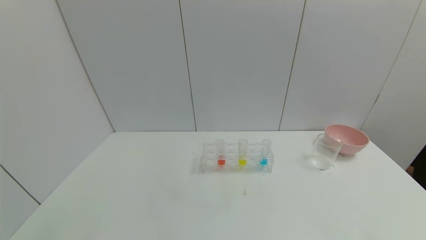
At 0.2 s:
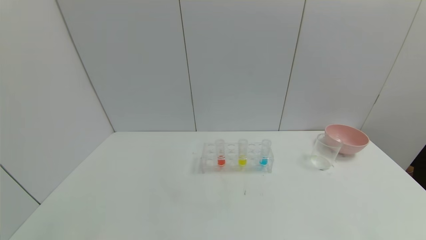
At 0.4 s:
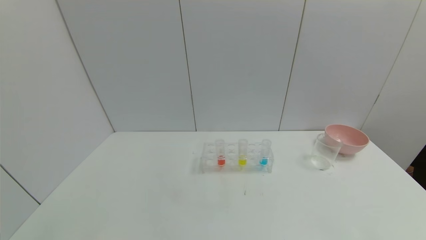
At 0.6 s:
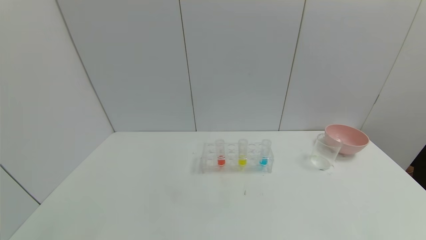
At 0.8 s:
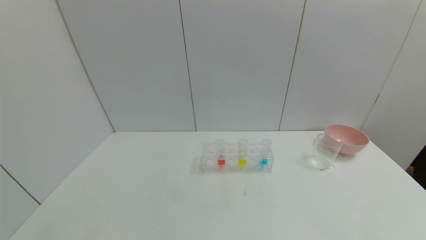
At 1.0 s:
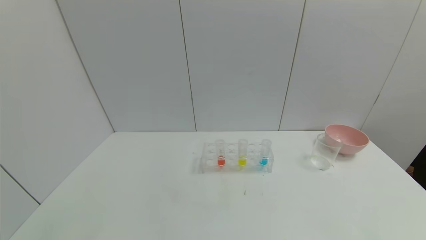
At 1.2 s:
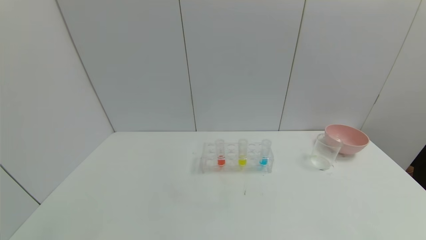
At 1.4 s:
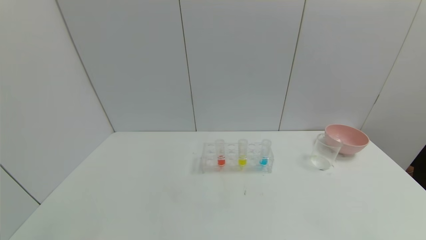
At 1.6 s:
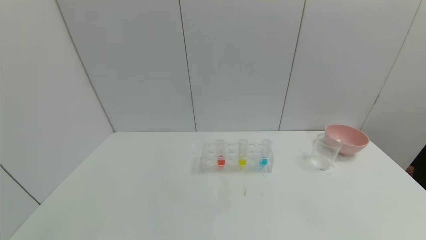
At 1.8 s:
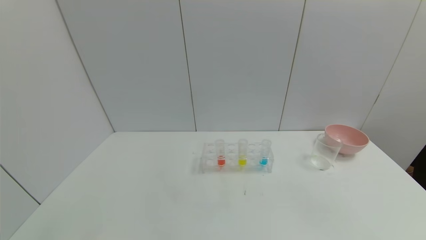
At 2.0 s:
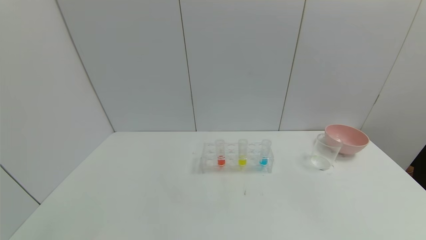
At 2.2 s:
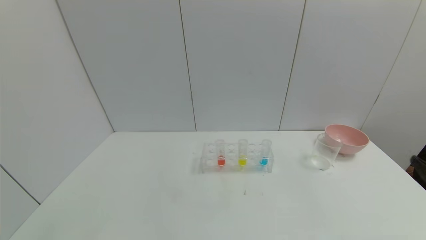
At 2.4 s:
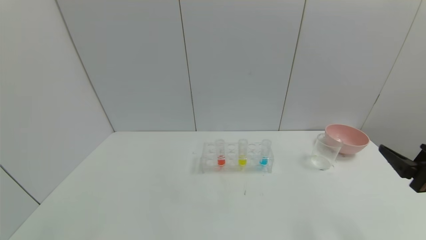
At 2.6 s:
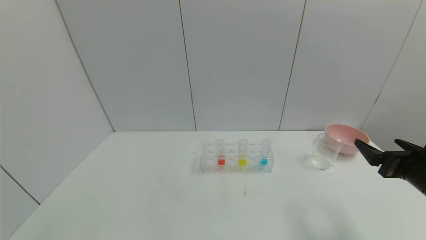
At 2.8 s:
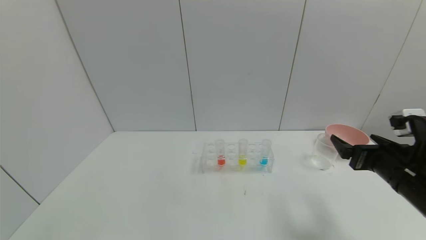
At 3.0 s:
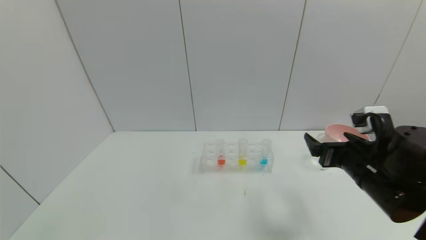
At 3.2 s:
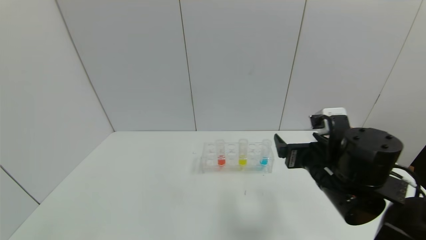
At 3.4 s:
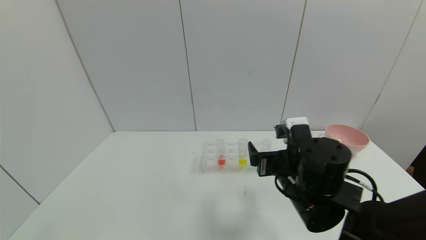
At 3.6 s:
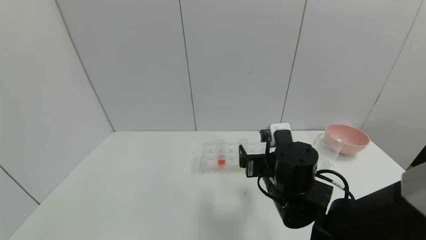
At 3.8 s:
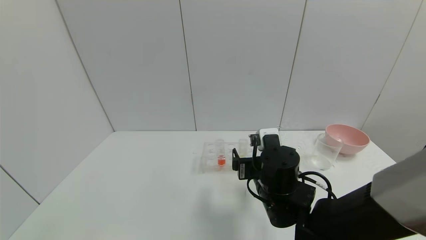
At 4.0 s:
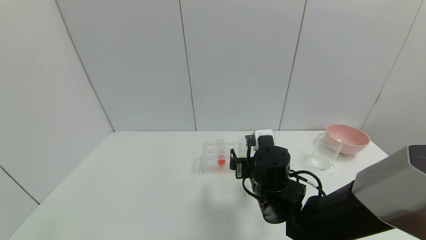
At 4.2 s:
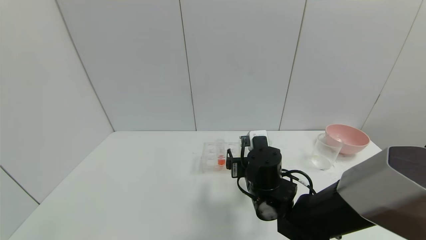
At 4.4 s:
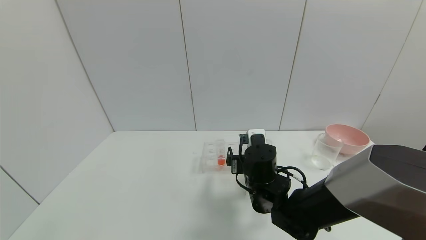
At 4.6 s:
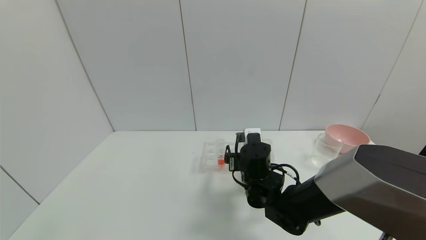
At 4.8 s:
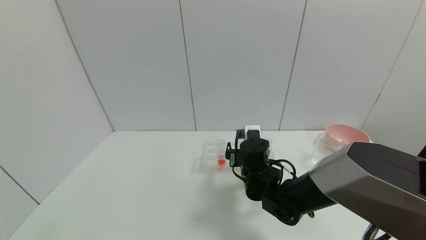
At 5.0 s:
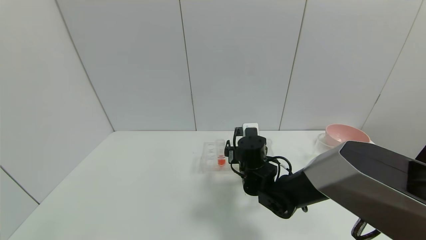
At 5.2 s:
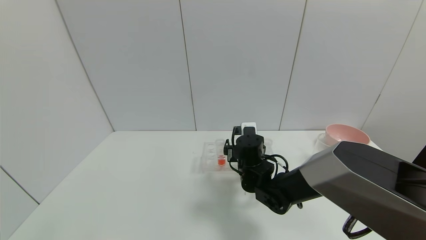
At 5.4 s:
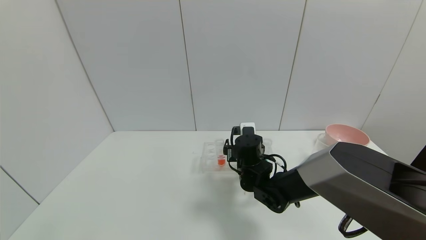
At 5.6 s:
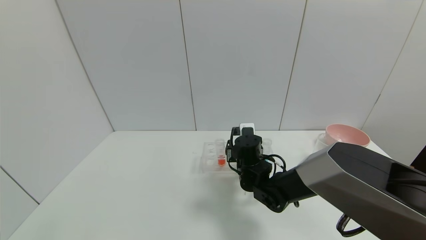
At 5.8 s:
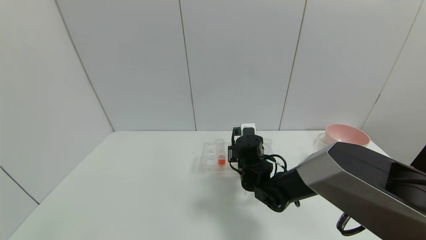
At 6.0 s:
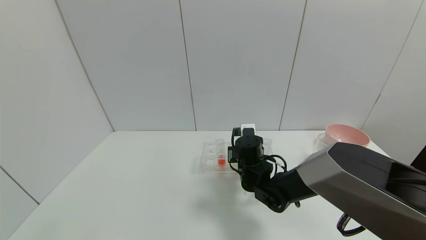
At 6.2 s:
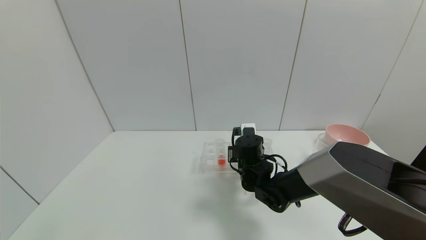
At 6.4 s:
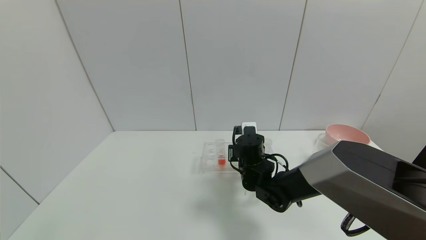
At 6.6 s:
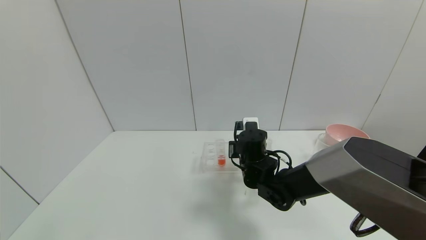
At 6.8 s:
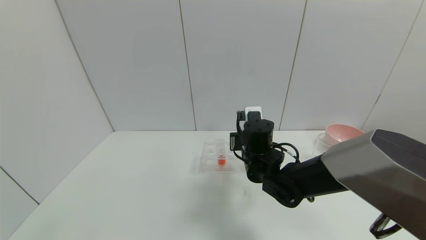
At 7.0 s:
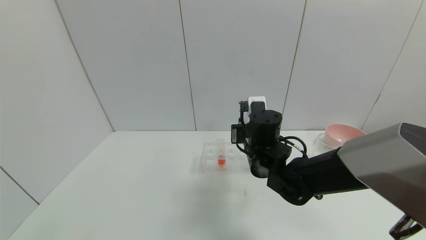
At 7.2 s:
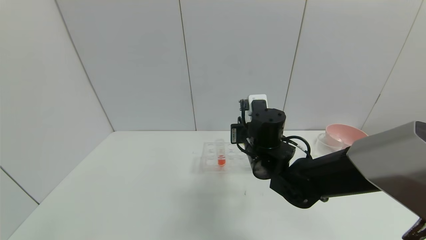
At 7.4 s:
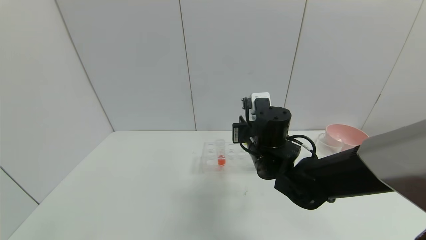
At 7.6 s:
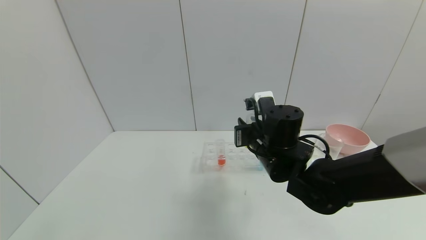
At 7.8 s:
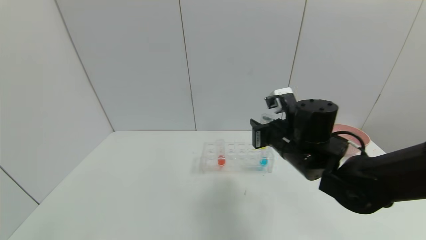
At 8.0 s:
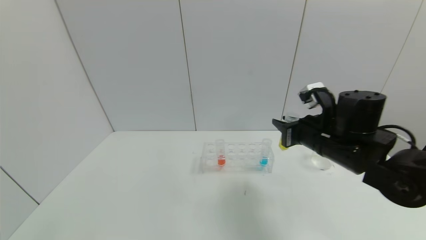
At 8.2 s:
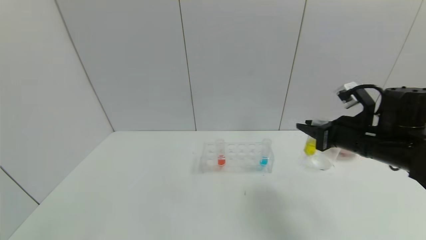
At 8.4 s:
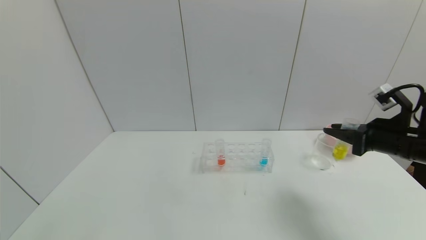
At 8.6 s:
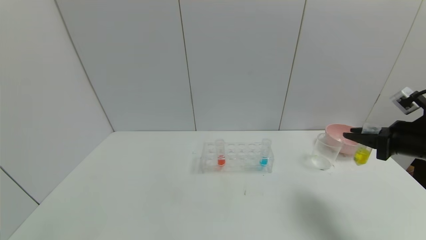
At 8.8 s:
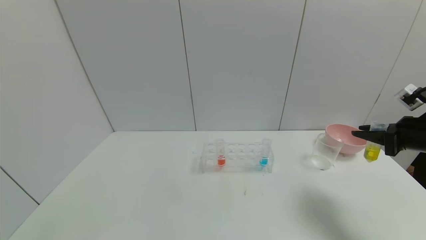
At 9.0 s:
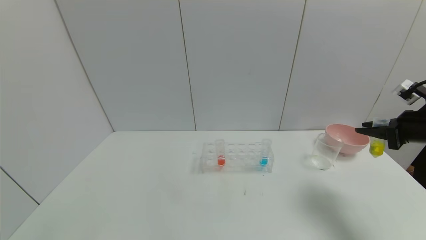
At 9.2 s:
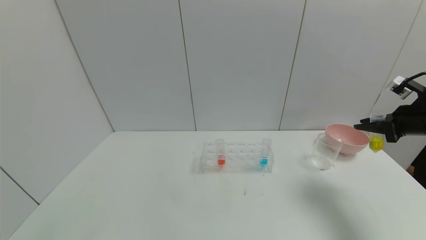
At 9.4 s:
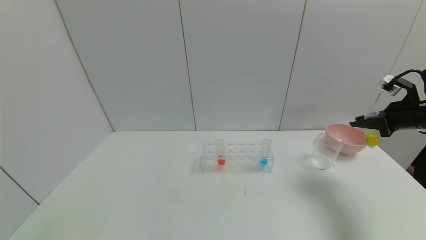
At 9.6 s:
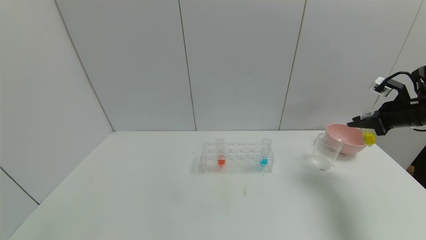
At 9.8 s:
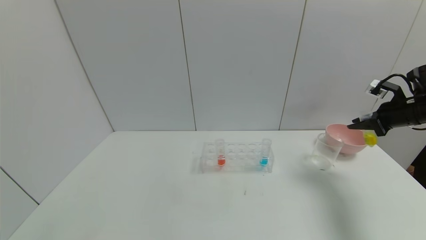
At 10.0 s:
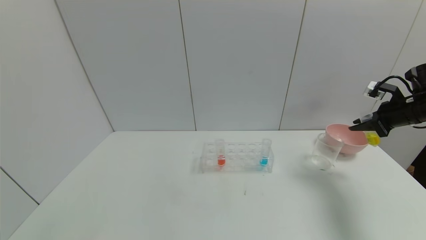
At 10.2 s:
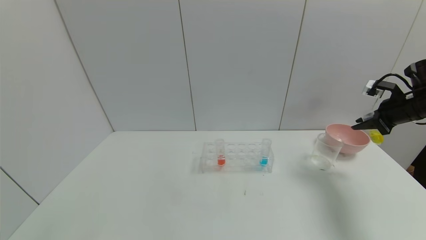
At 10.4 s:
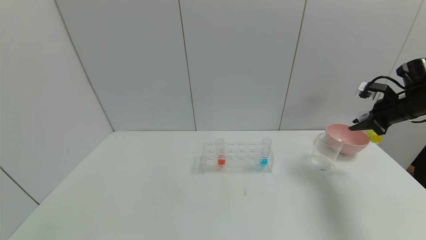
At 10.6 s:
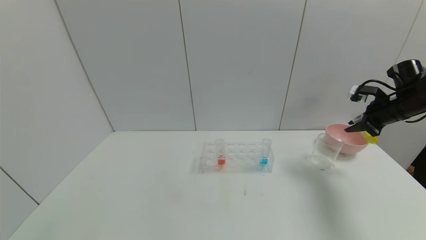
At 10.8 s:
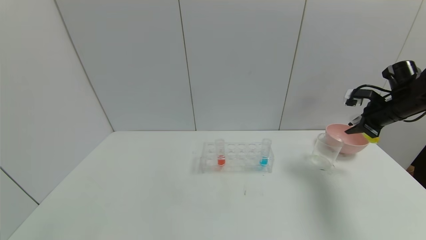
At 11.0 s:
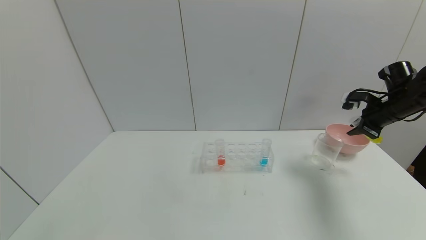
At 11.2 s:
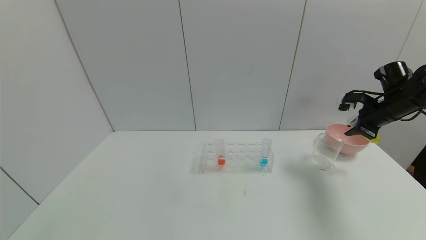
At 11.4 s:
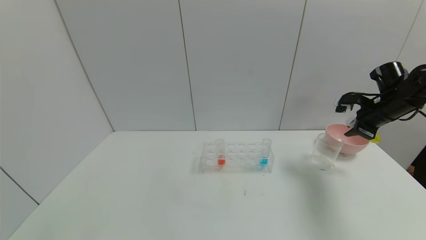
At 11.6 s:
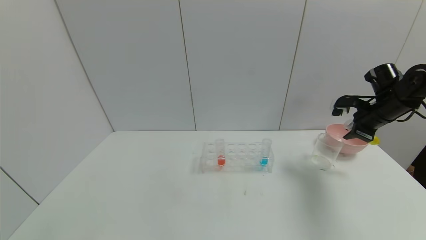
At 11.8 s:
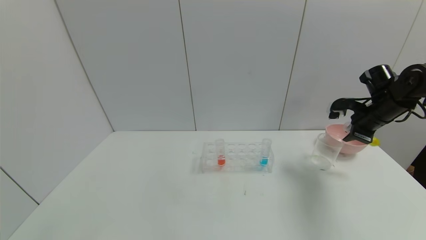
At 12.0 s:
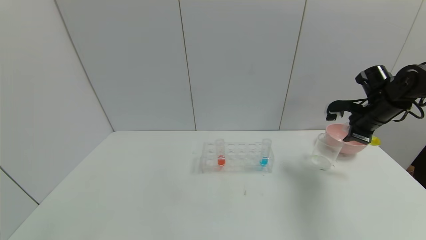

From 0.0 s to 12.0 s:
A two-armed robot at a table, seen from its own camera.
Task of the whole recording: pick up the test tube with yellow pigment and the test tube with blue pigment by grippers and pour them into the beaker.
Step, from 0.0 s to 6.0 s: Grasp the yellow reagent with the right gripper.
From 1.6 s to 3.0 s: The right gripper shifts some 30 cm forward and to the left.
From 3.0 s to 4.4 s: The right gripper heads to the left, downward and forward, covering roughly 20 cm.
From 4.4 s to 6.0 s: The right gripper shifts some 5 cm forward, and closes up.
From 6.0 s to 7.6 s: The right gripper goes about 10 cm upward and backward.
From 7.6 s to 9.0 s: The right gripper goes about 30 cm to the right.
From 9.0 s to 10.4 s: The right gripper shifts approximately 10 cm forward.
From 10.4 s to 12.0 s: The right gripper is displaced to the left by some 5 cm.

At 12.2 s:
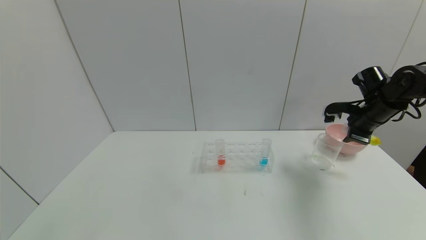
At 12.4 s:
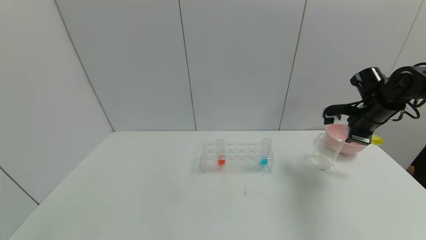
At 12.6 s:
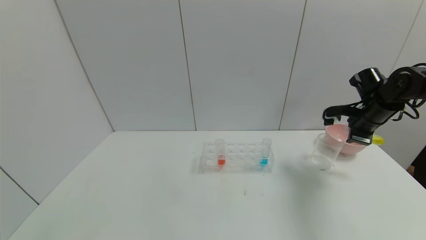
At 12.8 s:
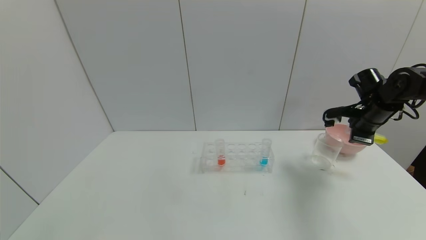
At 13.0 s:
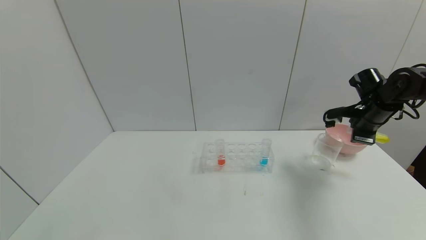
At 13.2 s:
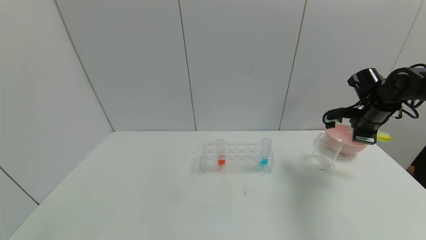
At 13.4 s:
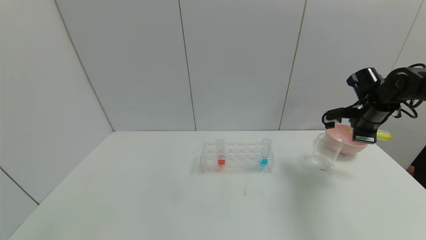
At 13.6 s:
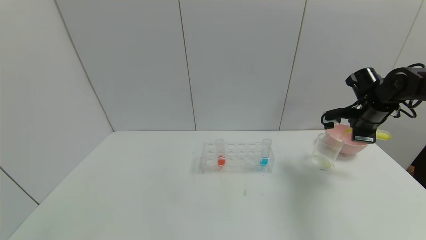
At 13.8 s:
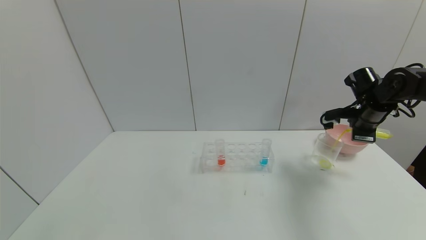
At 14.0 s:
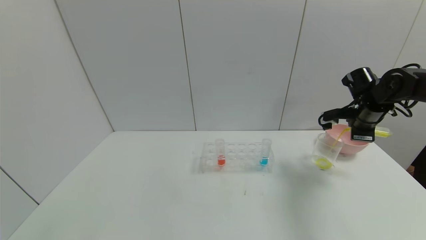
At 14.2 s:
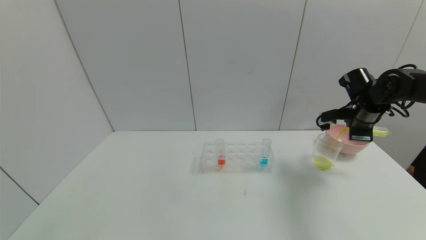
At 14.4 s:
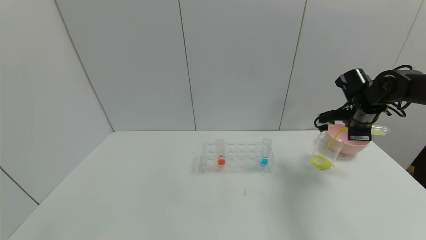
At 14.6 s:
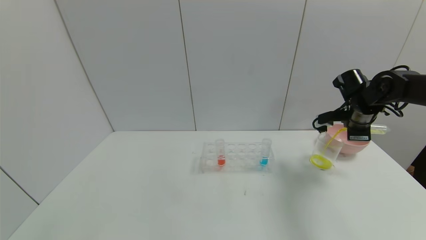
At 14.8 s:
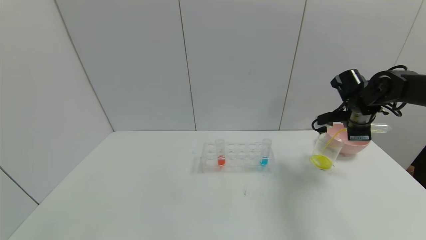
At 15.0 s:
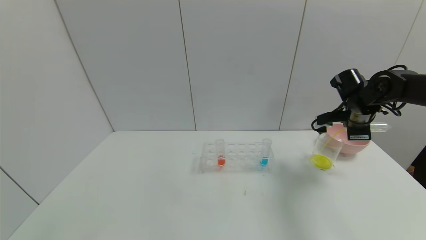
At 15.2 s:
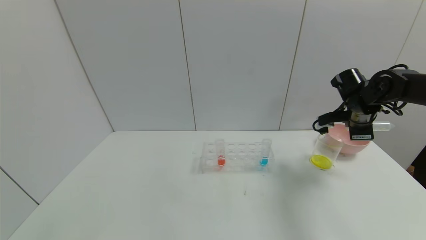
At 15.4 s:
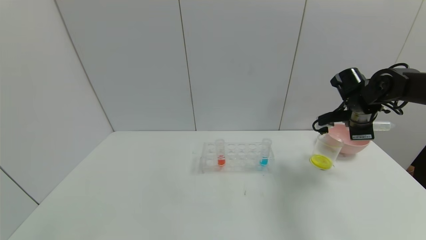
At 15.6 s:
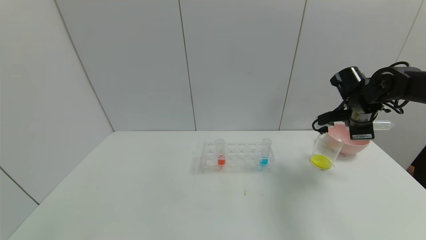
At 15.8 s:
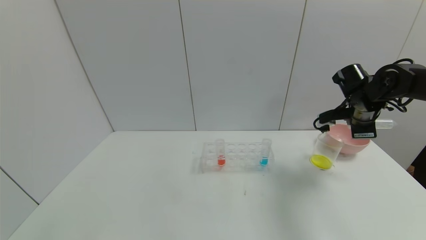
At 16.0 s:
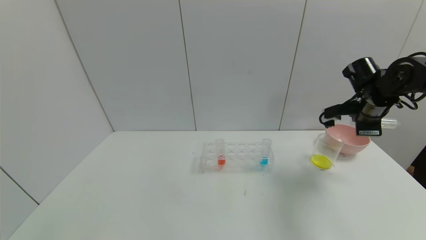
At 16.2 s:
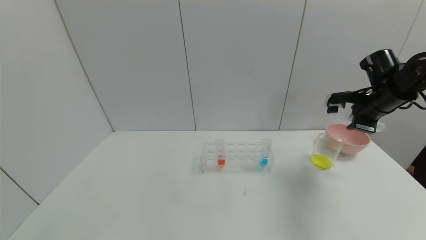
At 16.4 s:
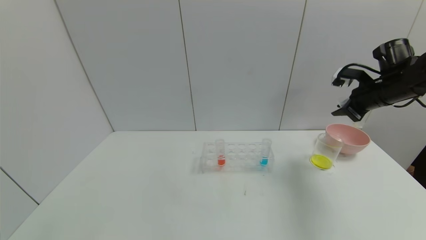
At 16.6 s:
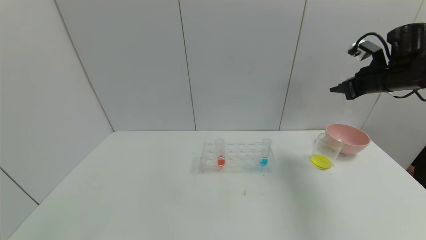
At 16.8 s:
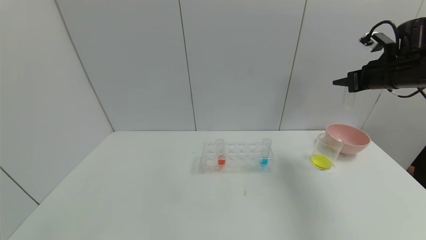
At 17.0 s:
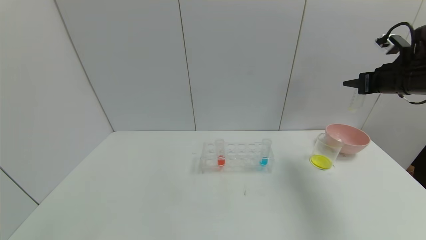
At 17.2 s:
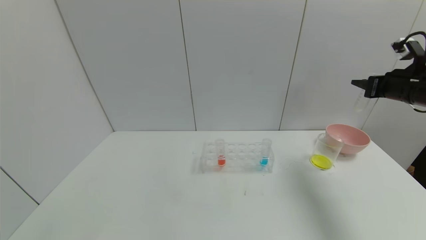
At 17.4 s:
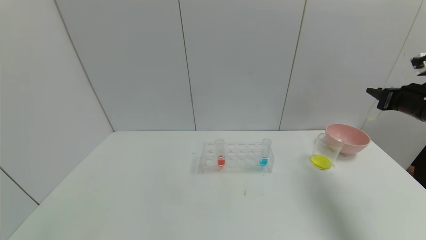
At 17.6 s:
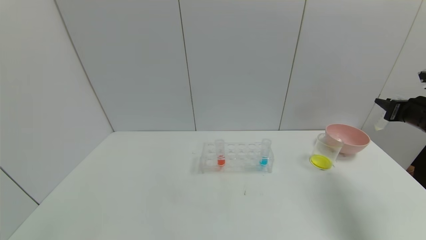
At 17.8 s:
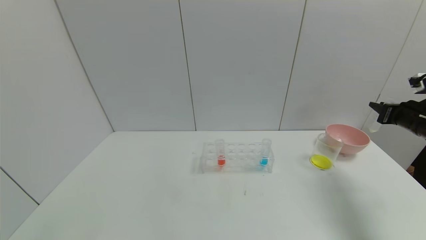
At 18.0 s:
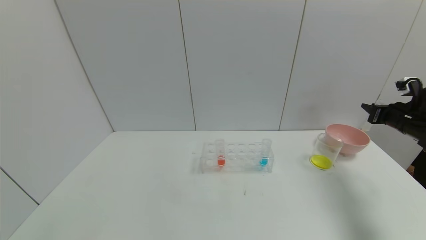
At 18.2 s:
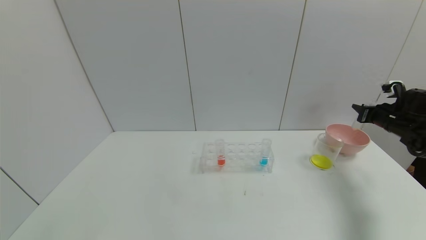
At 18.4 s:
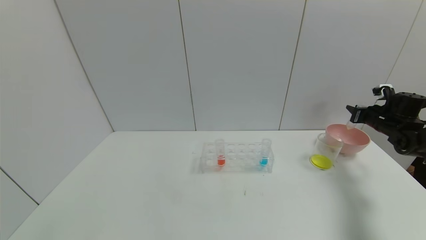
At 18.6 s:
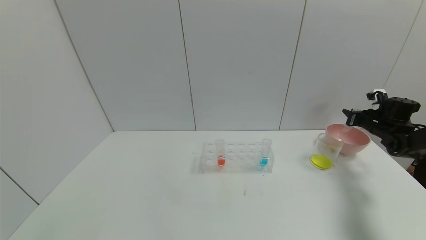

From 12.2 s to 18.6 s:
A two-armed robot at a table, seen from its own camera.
Task of the whole recording: pick up the test tube with yellow pigment and the test tube with blue pigment by grippers and pour them into the beaker.
Step, from 12.2 s to 15.6 s: Pour the yellow reagent into the graduated cylinder with the right gripper.
From 12.2 s to 13.8 s: The grippers stay close to where they were, moving slightly.
From 13.8 s to 15.4 s: The grippers move only a little.
From 15.4 s to 17.0 s: The right gripper is displaced upward and to the right by approximately 10 cm.
From 17.0 s to 18.6 s: The right gripper travels downward, forward and to the right by roughly 20 cm.
